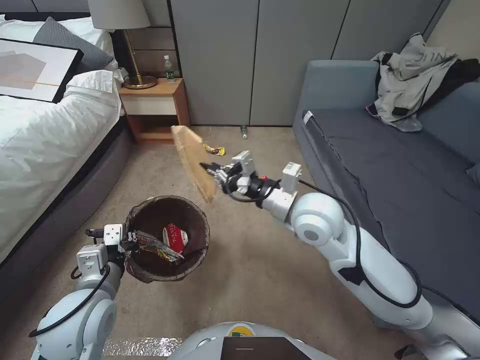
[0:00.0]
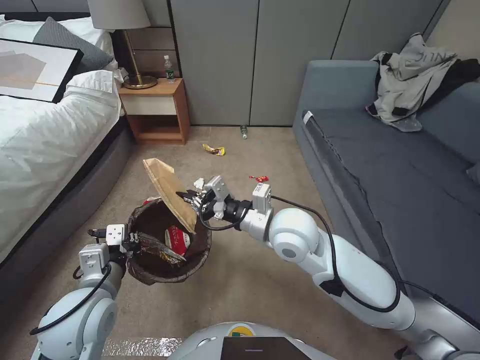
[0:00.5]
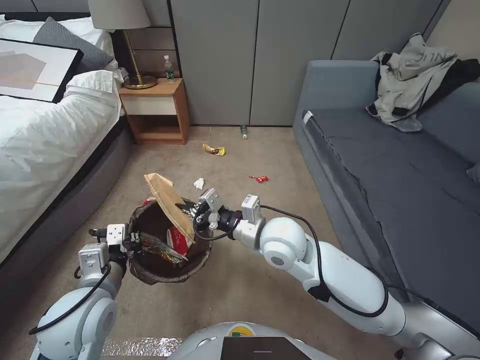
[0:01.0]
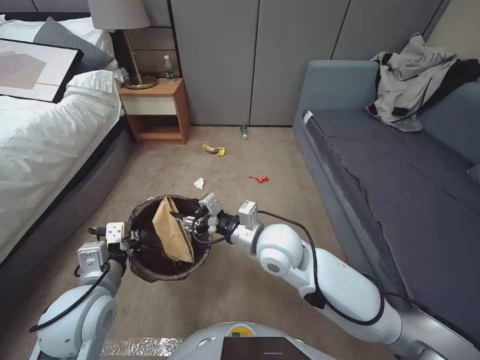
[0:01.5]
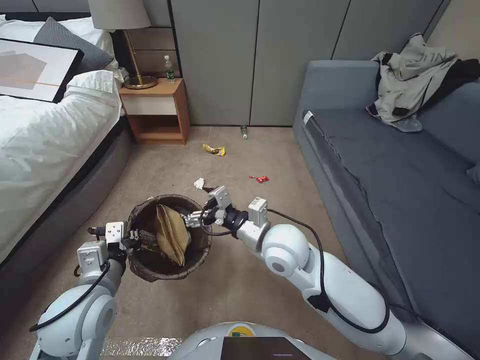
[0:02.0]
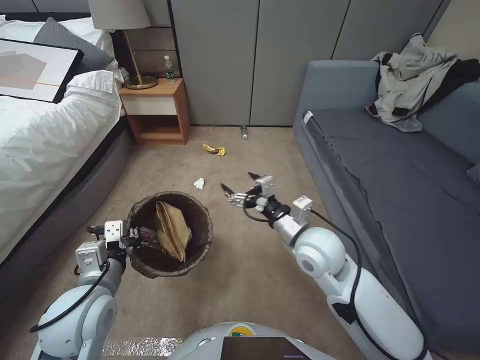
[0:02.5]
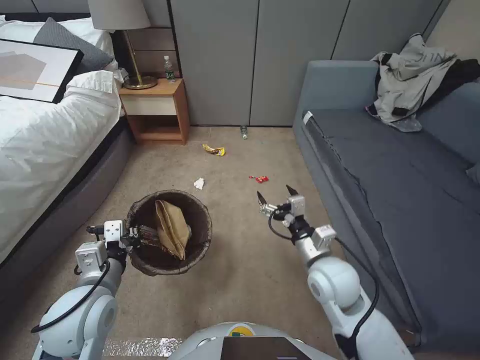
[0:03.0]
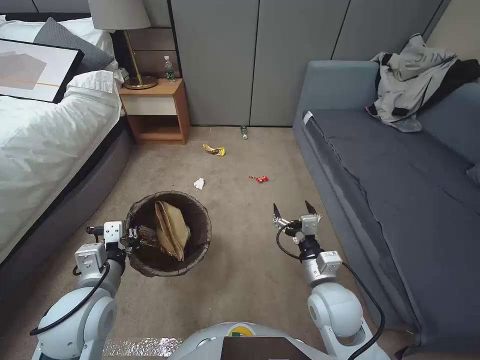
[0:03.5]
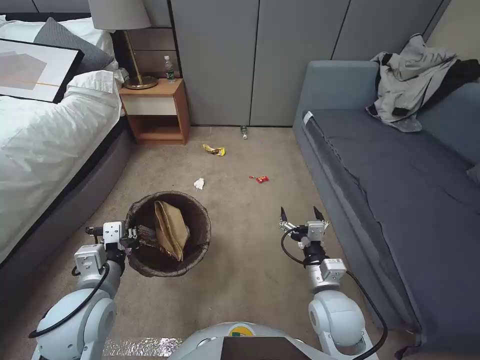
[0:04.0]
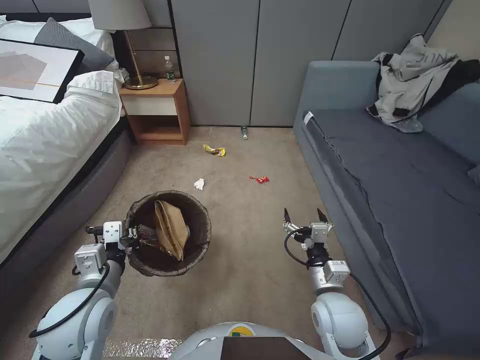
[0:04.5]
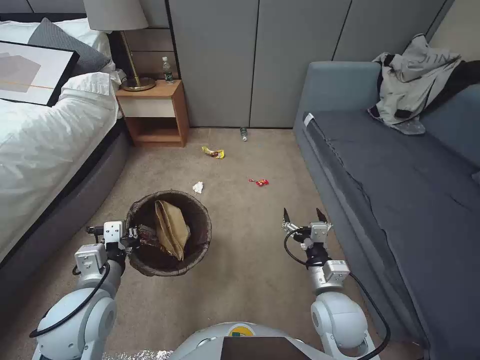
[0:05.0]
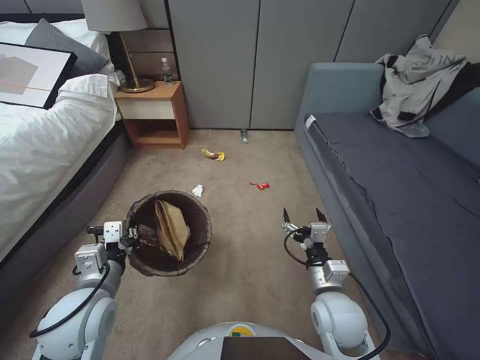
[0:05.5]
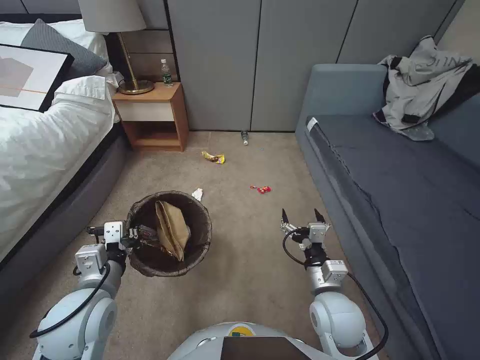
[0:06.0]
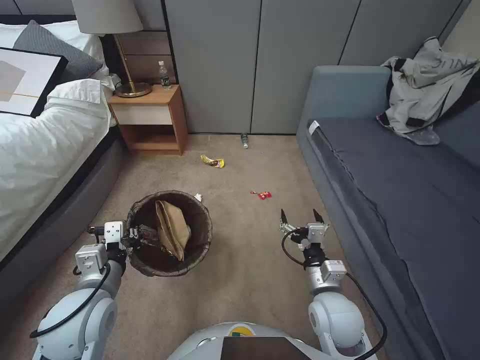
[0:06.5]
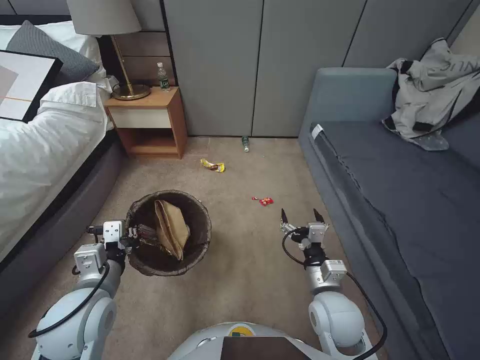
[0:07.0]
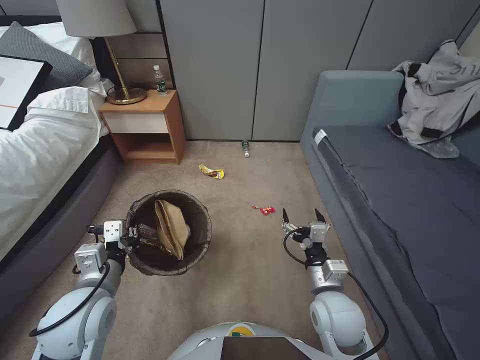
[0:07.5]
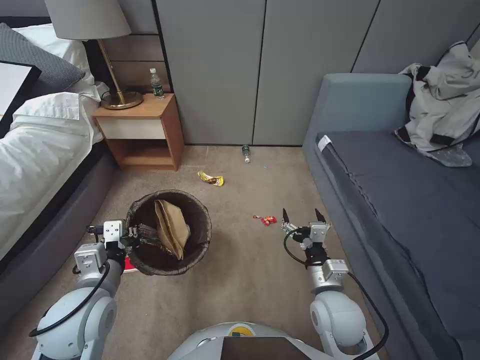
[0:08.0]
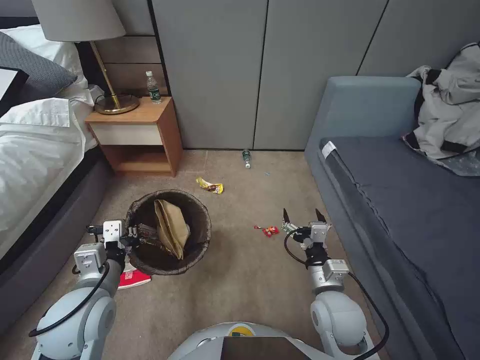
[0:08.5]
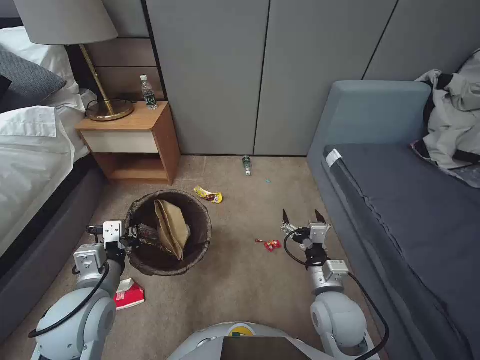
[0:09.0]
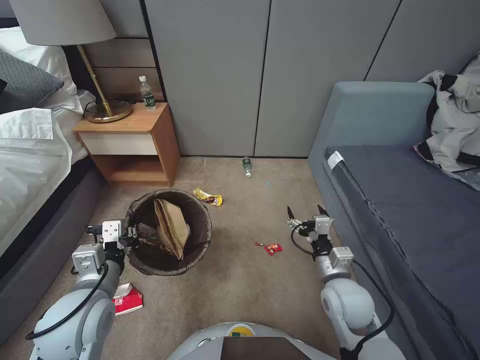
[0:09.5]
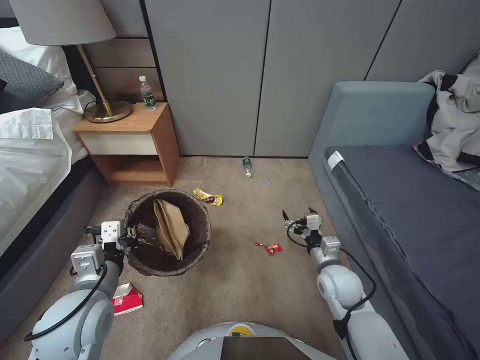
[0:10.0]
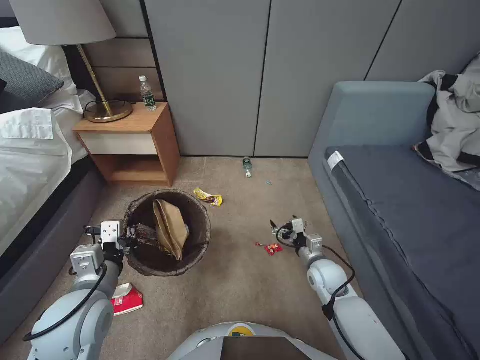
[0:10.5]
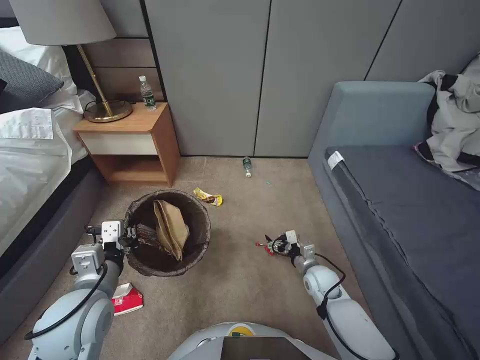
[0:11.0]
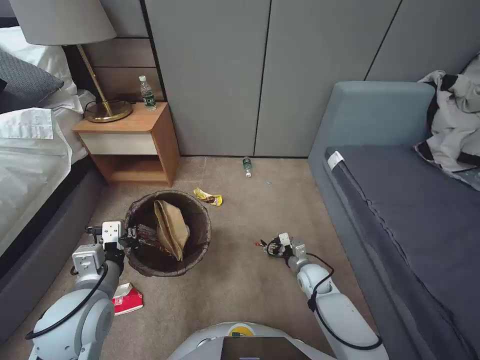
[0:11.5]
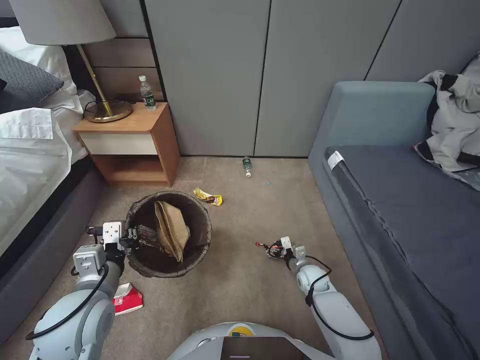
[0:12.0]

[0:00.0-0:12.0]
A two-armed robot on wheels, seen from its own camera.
Task of the whole recording: Pick up the trash bin, then pick up the garbage from the floor and place it into the trash bin.
0:00.0 to 0:02.0: The right gripper moves to the left and downward, roughly 10 cm, and opens up.
0:02.0 to 0:04.0: The right gripper is displaced to the right, downward and backward by some 20 cm.
0:04.0 to 0:06.0: The two grippers keep their place.
0:08.0 to 0:10.0: The right gripper moves forward and to the right, about 10 cm.
0:10.0 to 0:12.0: The right gripper shifts approximately 20 cm downward and forward.

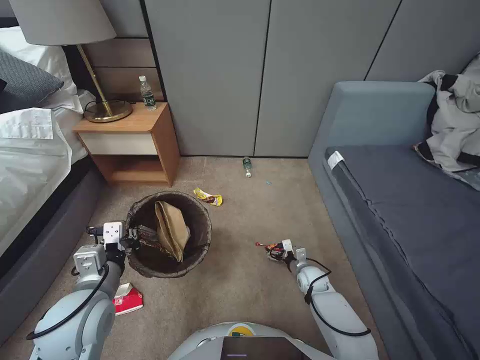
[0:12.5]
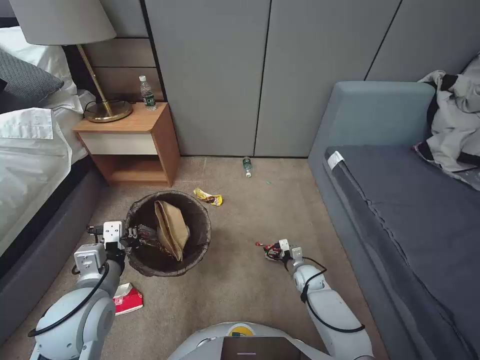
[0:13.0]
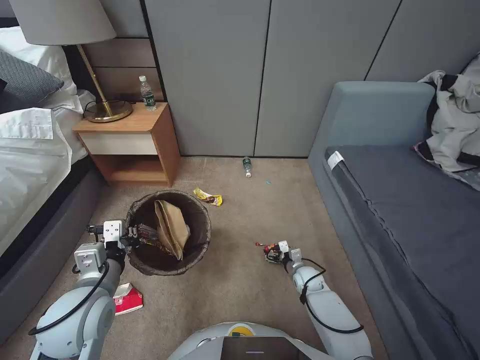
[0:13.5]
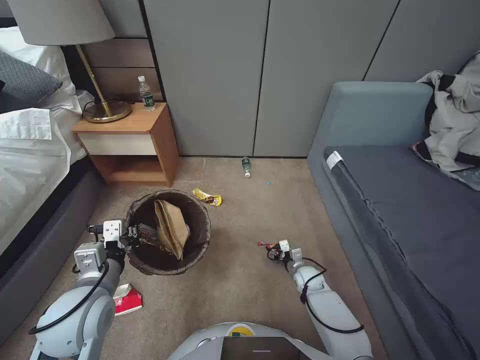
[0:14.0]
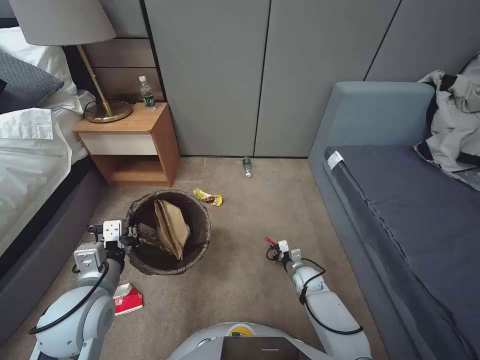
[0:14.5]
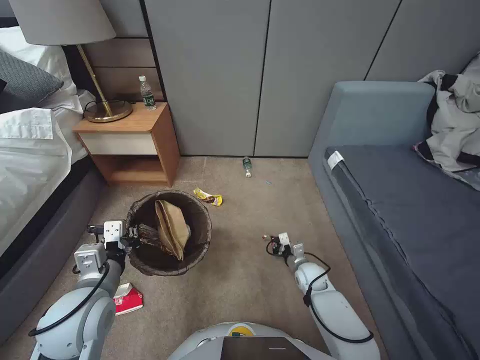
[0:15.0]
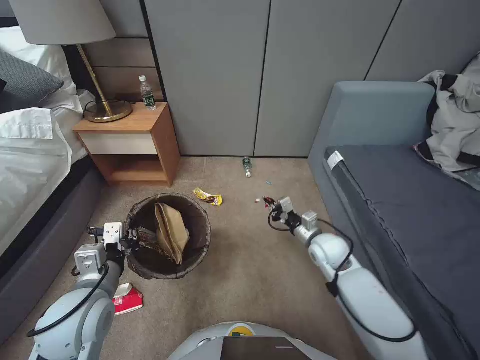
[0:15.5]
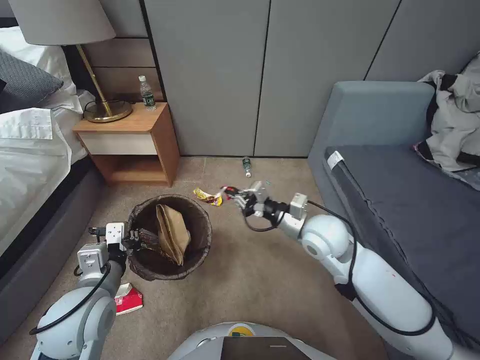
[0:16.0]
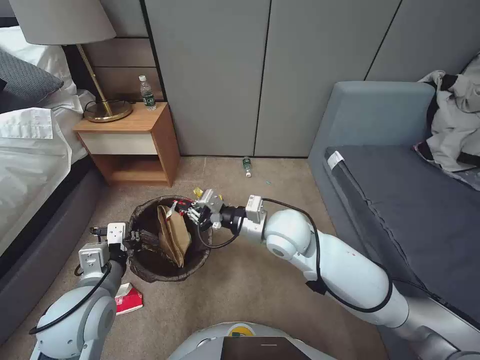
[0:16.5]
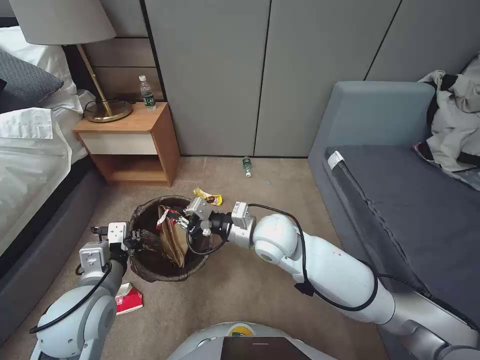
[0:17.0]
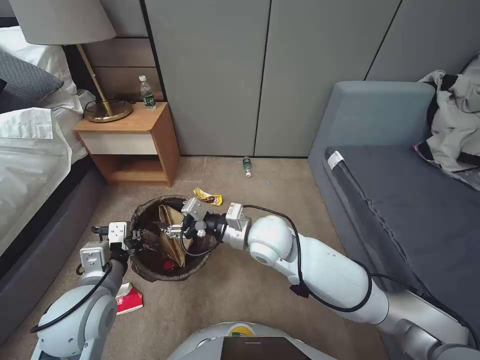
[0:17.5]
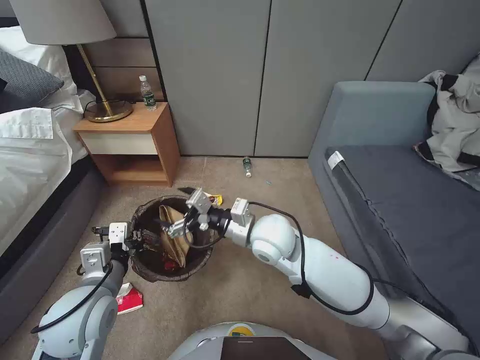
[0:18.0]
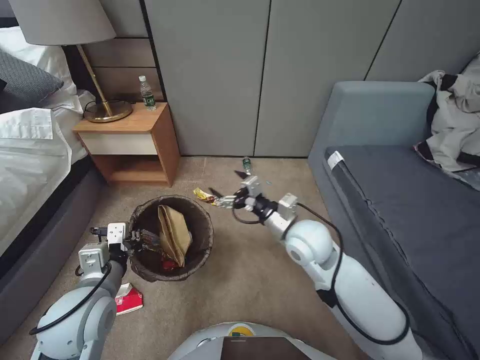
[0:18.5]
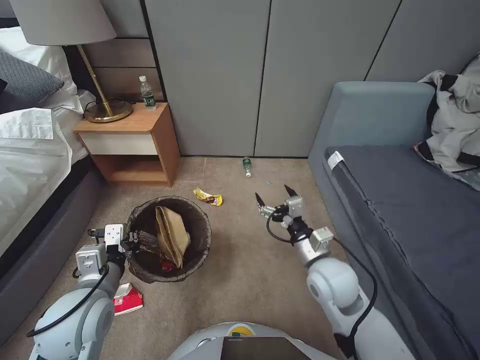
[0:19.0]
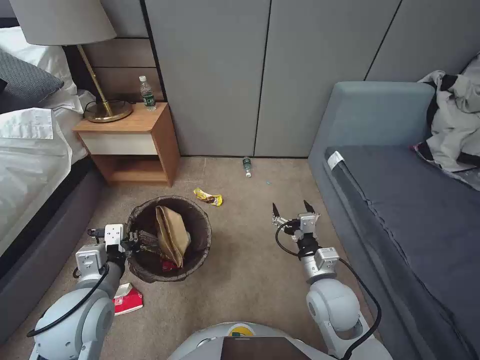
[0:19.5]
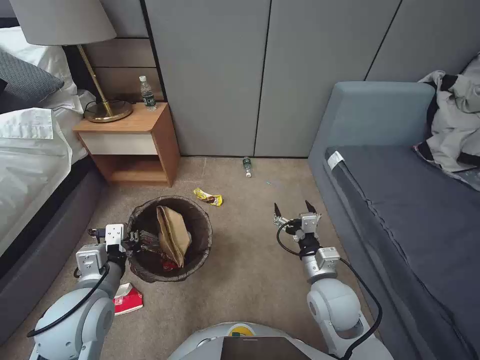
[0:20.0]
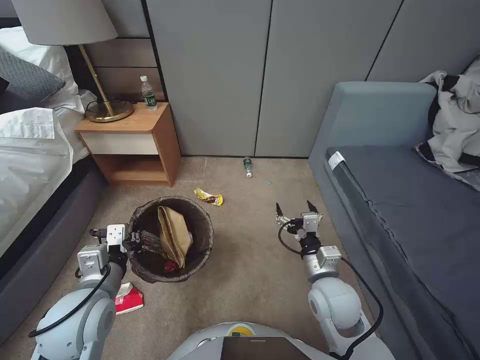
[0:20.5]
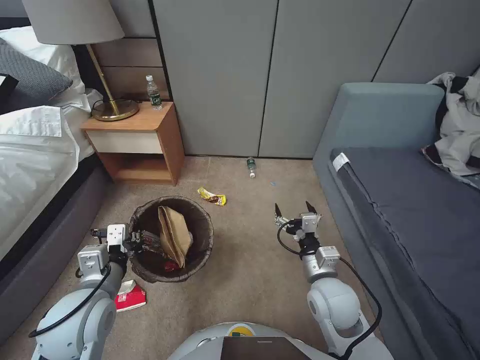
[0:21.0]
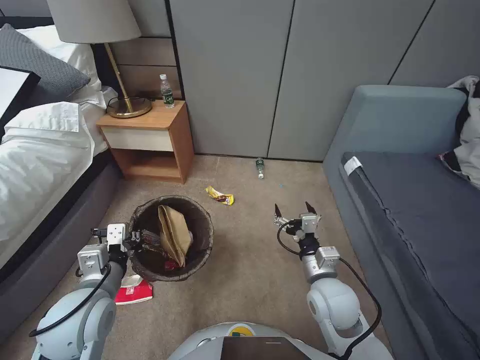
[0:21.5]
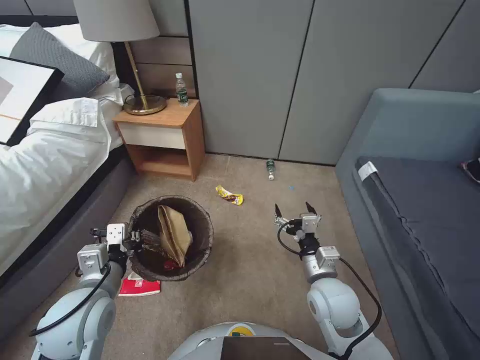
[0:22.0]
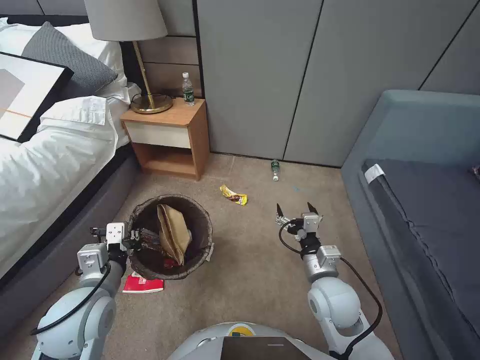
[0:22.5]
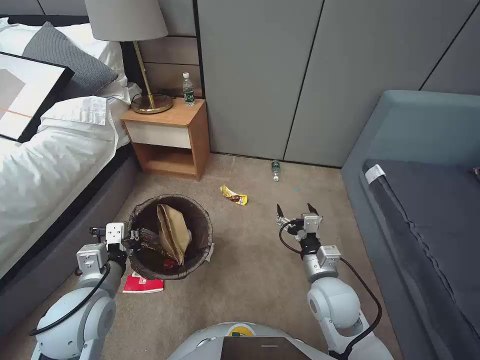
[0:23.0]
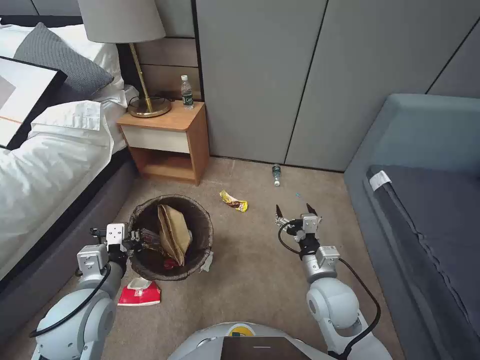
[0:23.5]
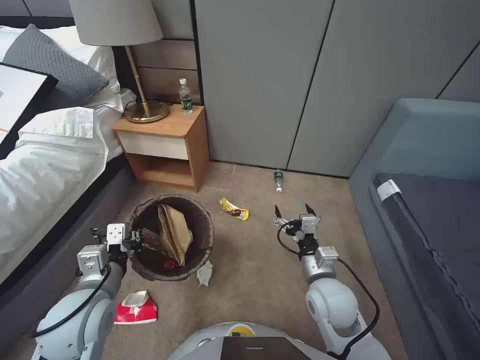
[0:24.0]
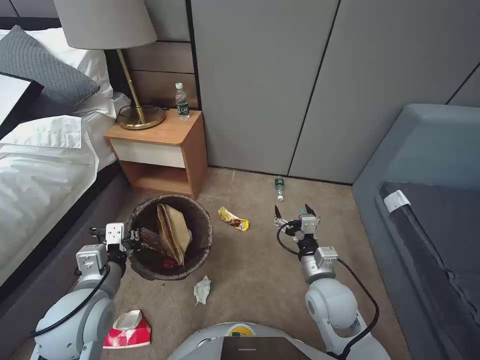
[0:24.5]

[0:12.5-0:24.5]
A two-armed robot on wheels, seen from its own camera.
Task of the whole recording: Pick up the trash bin, then pick up the garbage from the floor and place it into the trash bin.
0:12.5 to 0:14.5: The right gripper closes its fingers.
0:14.5 to 0:16.5: The right gripper shifts about 40 cm upward and to the left.
0:16.5 to 0:18.5: The right gripper opens up.
0:18.5 to 0:20.5: The right gripper shifts roughly 15 cm backward, downward and to the right.

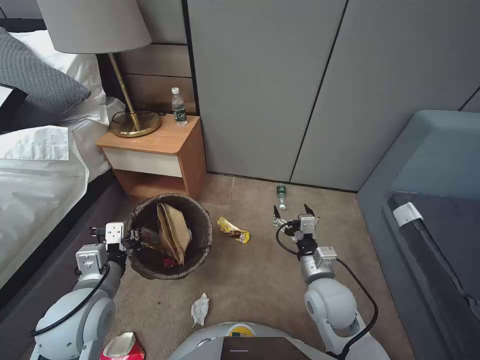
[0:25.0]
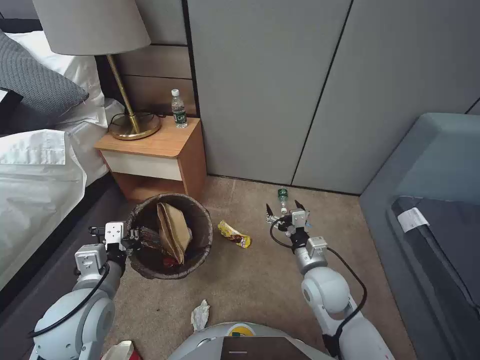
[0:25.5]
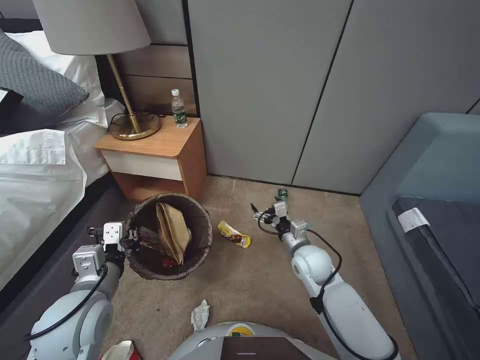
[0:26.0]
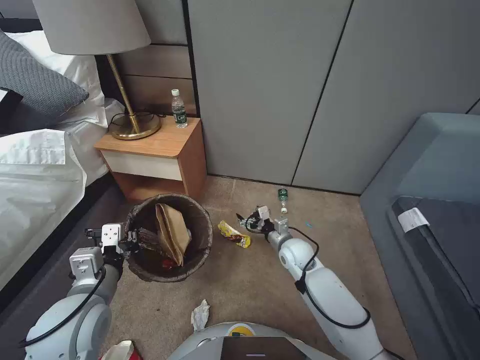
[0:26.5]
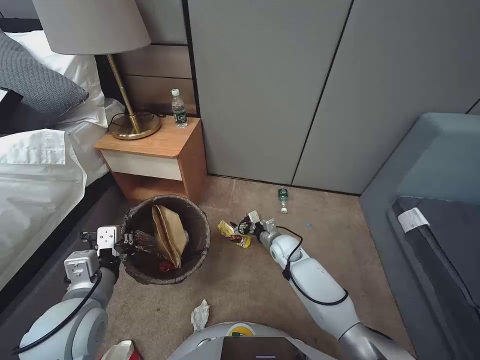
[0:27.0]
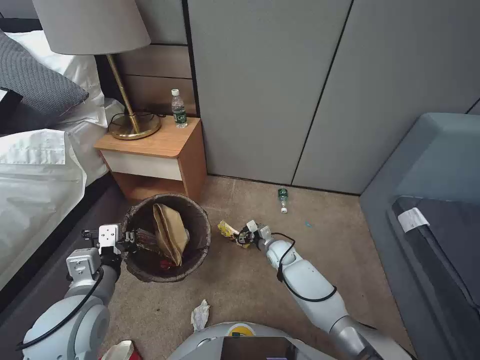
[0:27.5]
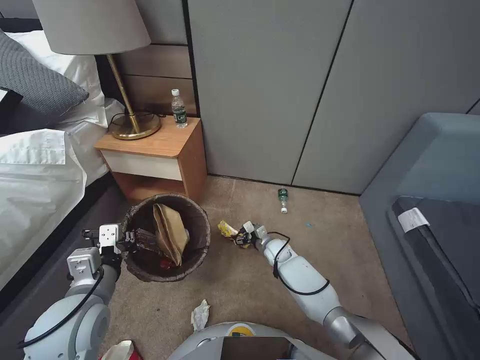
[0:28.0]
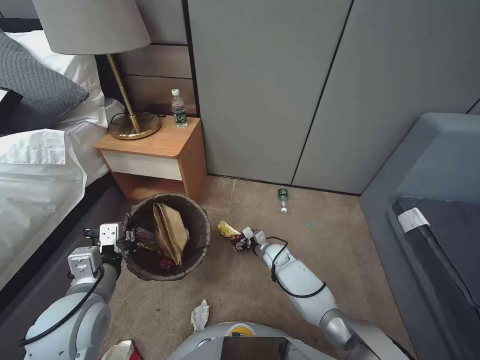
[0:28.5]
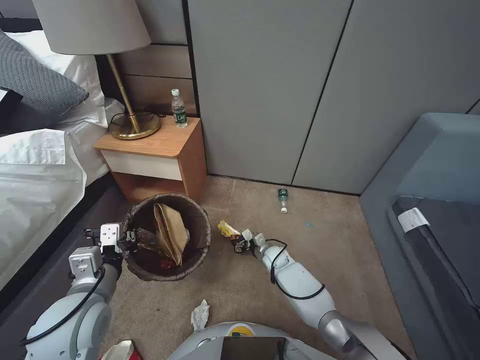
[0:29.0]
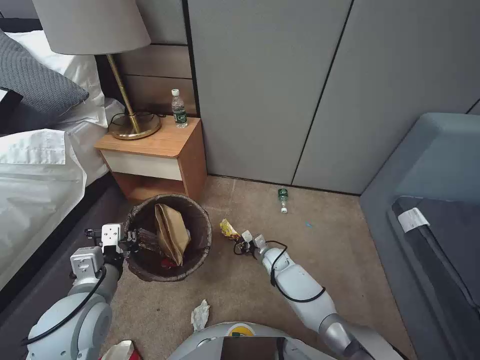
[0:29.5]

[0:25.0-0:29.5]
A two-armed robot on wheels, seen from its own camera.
Task of the whole recording: Pick up the trash bin, then pick up the garbage from the floor and place it into the trash bin.
0:25.0 to 0:27.0: The right gripper moves forward and downward, roughly 20 cm.
0:27.0 to 0:29.5: The right gripper goes roughly 10 cm downward, and closes its fingers.
